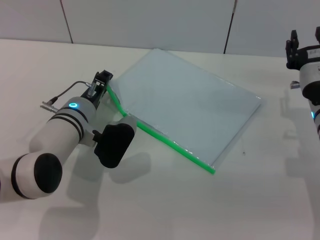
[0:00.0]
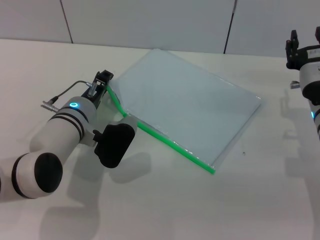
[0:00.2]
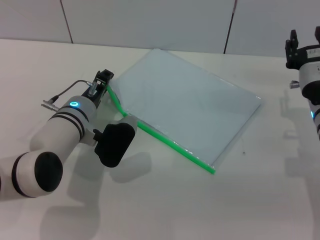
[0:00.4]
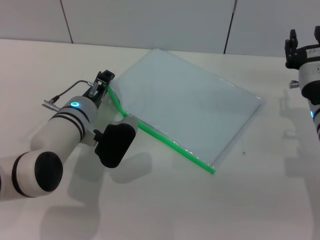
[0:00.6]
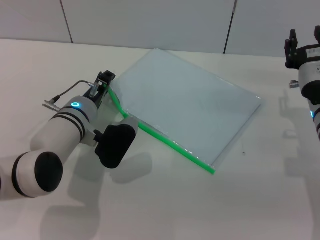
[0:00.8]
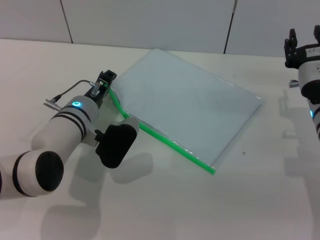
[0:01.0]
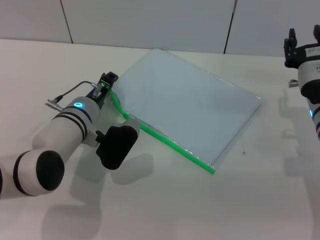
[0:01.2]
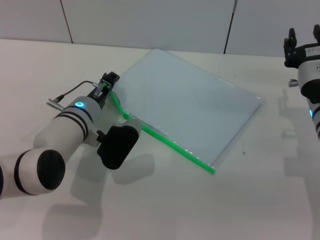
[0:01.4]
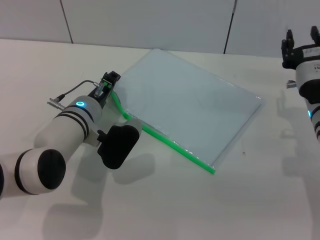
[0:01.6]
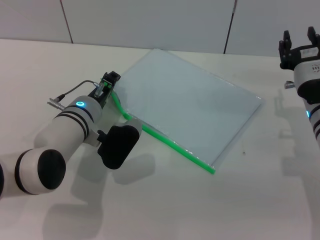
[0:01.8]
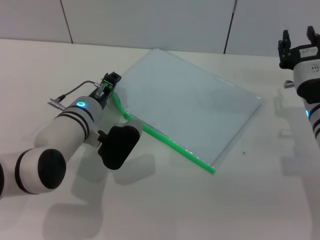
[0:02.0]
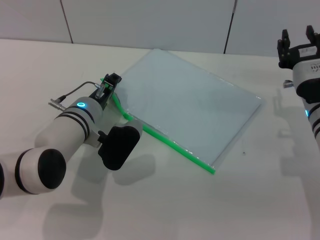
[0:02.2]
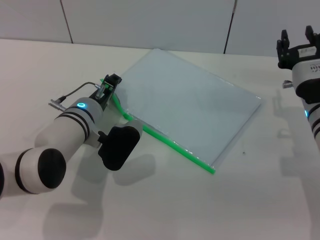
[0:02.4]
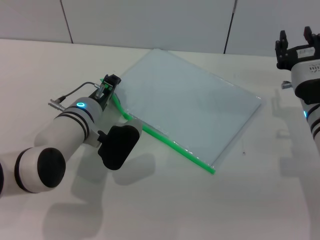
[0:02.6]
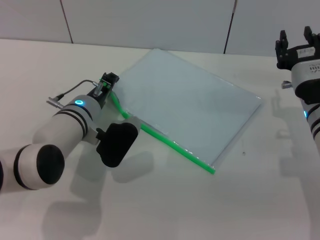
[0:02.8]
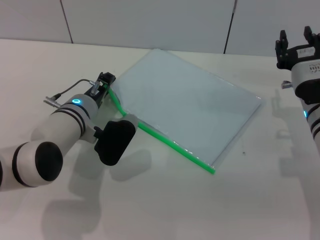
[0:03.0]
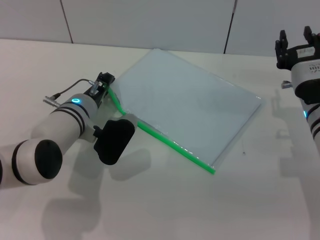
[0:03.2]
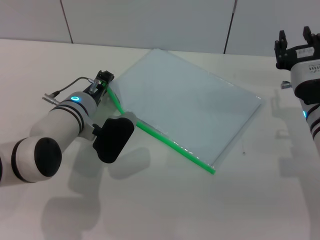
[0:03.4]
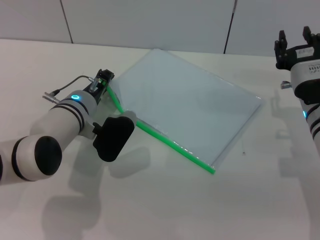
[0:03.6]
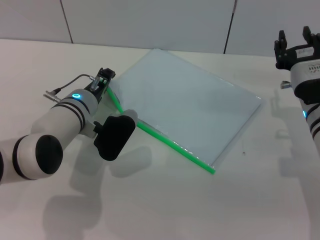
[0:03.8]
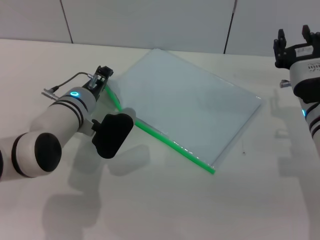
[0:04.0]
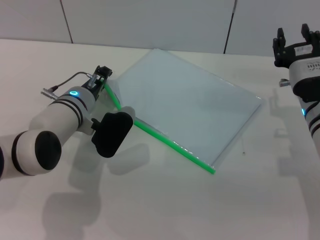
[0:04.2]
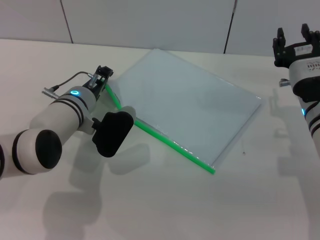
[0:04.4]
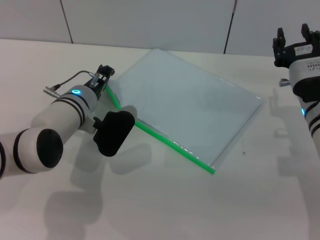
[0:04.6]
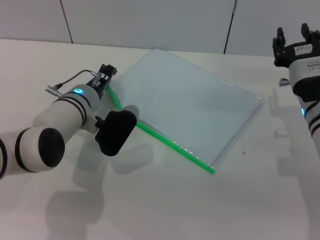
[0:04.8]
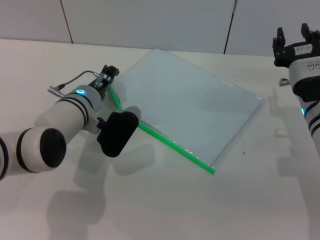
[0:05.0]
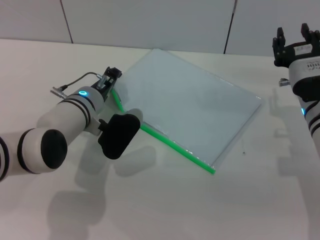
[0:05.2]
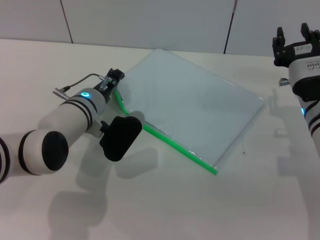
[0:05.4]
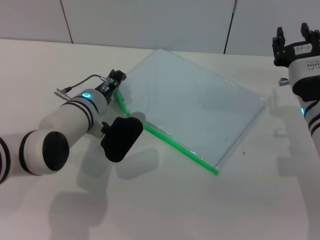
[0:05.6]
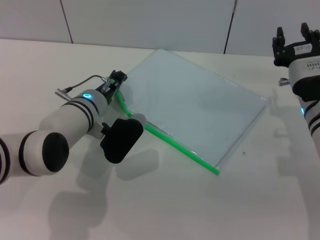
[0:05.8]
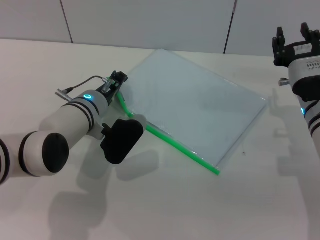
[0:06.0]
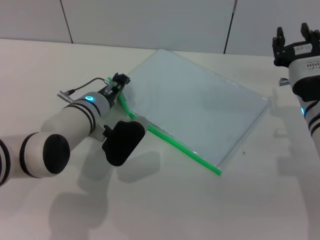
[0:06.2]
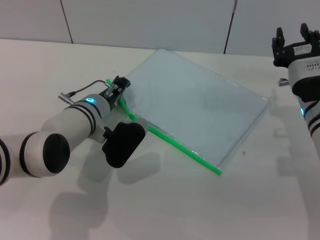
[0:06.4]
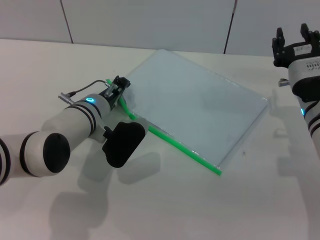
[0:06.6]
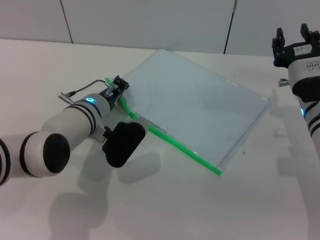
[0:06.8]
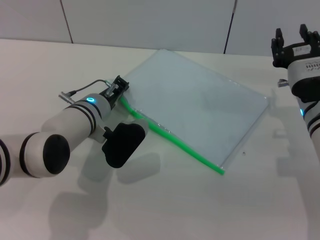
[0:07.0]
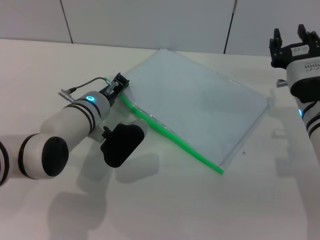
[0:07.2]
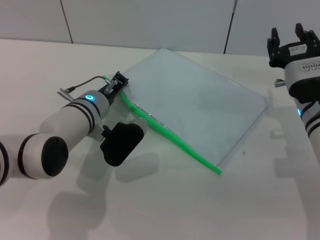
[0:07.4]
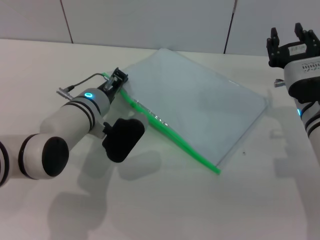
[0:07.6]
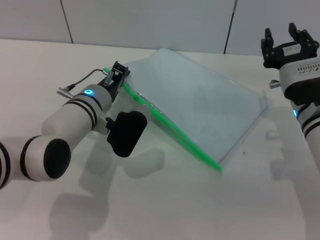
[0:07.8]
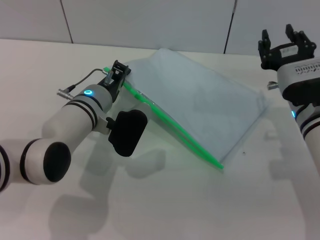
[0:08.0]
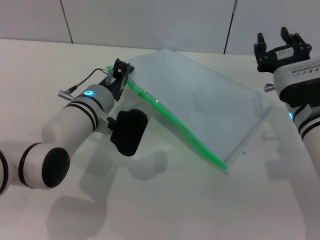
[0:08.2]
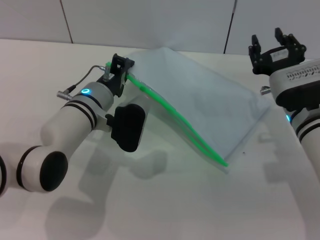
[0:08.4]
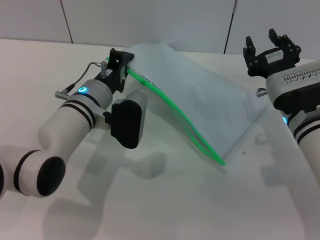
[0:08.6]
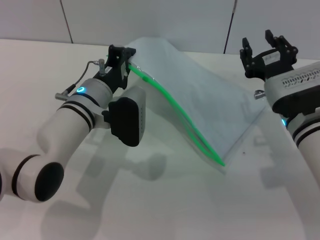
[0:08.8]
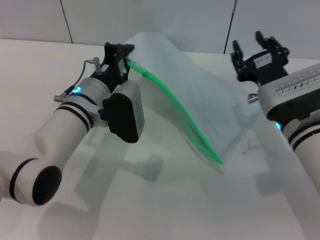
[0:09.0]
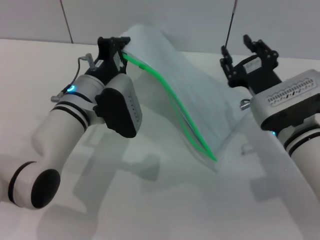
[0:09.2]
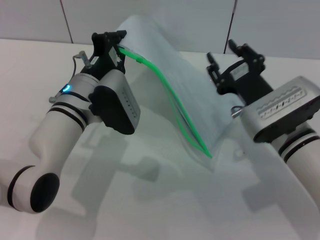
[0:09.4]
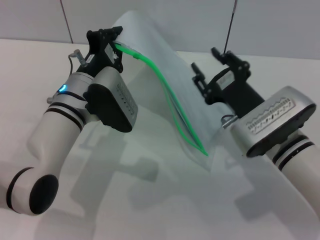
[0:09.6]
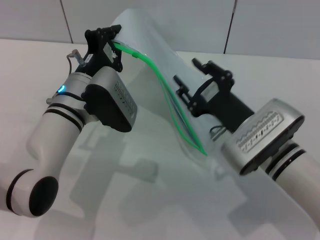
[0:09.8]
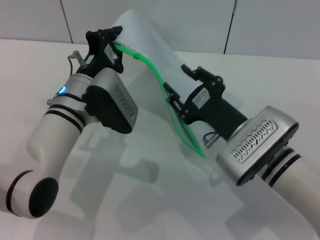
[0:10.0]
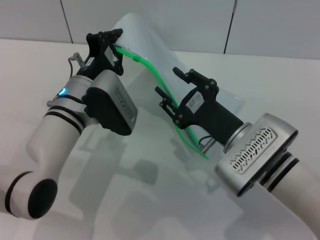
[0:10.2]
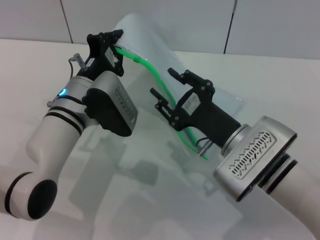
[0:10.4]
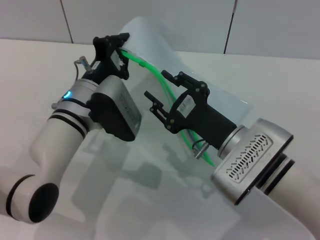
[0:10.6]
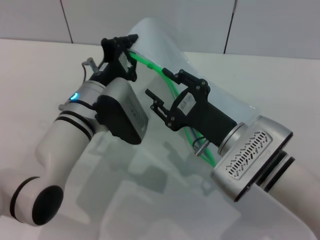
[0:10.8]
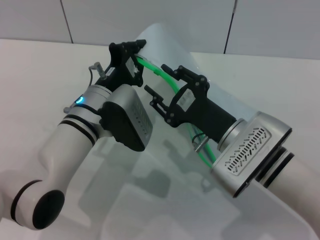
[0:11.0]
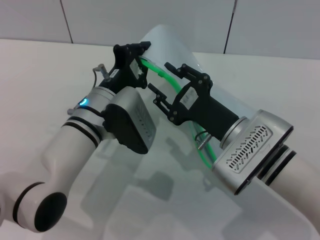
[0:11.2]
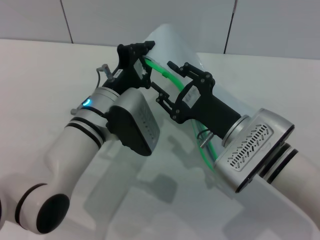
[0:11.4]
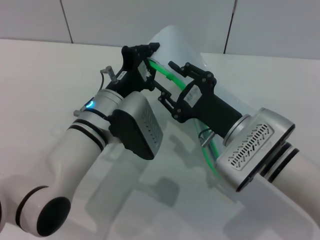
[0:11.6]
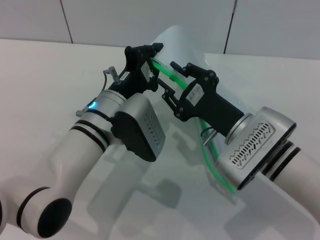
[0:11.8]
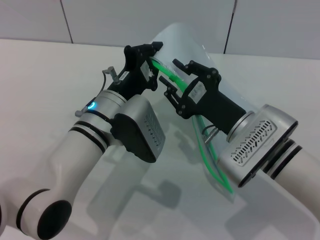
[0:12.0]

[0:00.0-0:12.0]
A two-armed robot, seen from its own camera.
Step, 0:00.0 to 0:10.4: Pick up the transparent plastic bag with the left gripper.
0:00.0 to 0:03.0: Neither gripper changes place.
0:03.0 to 0:06.0: The grippers make only small movements.
0:06.0 to 0:07.6: The left gripper closes up.
0:09.0 to 0:10.4: The right gripper moves backward and to the left, roughly 10 cm.

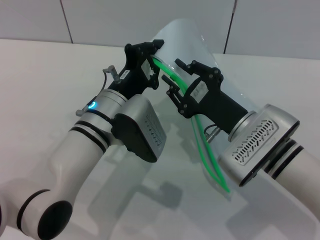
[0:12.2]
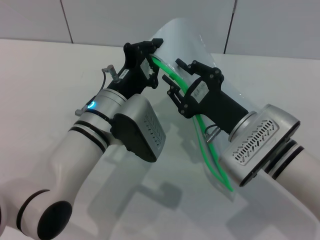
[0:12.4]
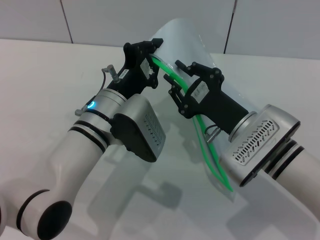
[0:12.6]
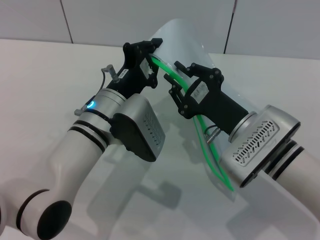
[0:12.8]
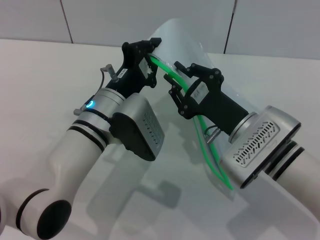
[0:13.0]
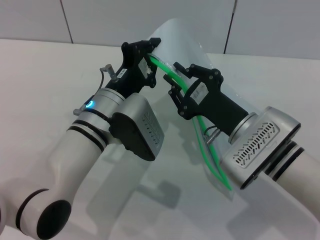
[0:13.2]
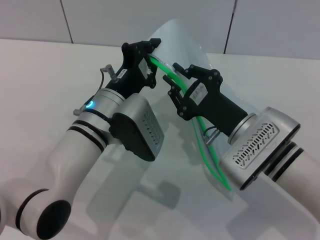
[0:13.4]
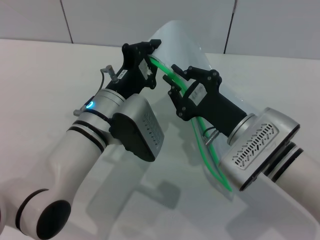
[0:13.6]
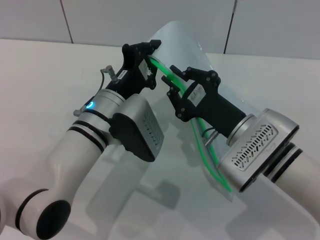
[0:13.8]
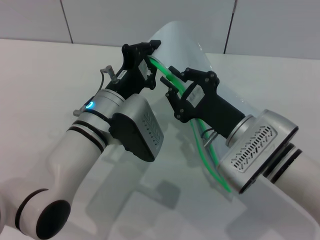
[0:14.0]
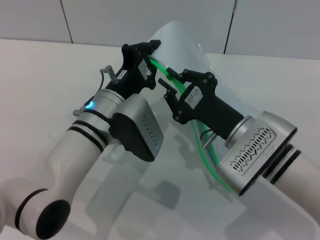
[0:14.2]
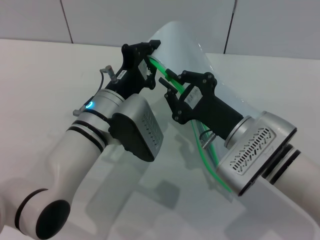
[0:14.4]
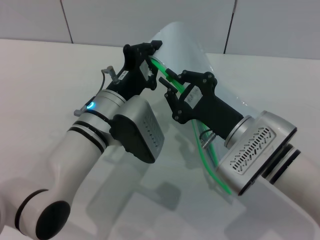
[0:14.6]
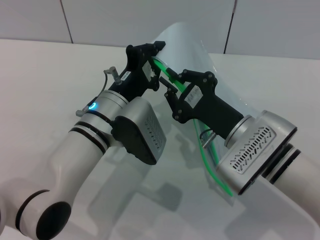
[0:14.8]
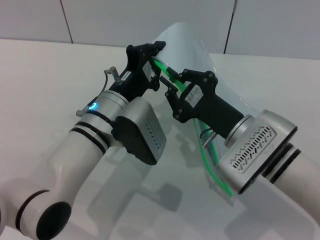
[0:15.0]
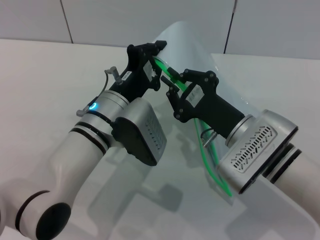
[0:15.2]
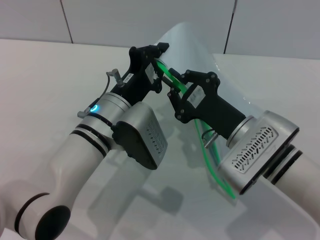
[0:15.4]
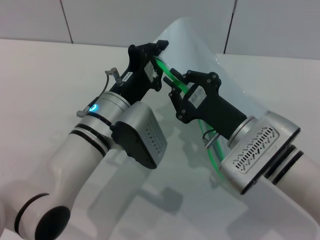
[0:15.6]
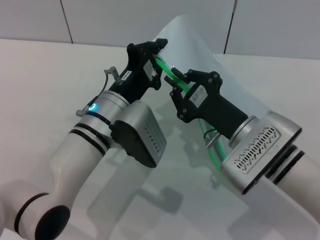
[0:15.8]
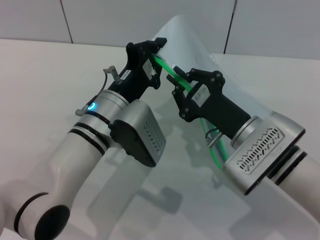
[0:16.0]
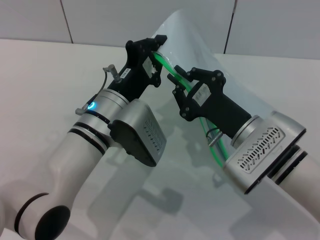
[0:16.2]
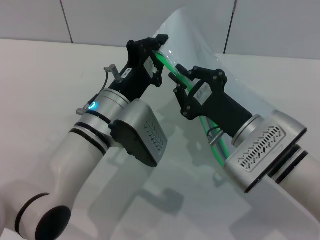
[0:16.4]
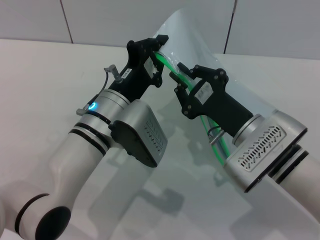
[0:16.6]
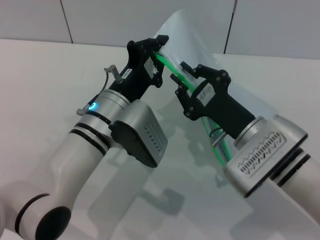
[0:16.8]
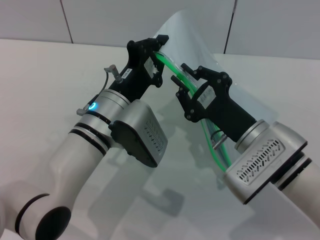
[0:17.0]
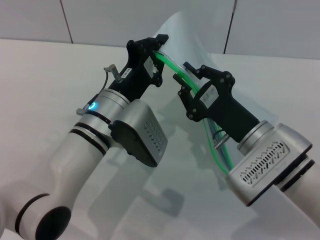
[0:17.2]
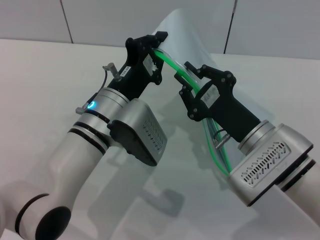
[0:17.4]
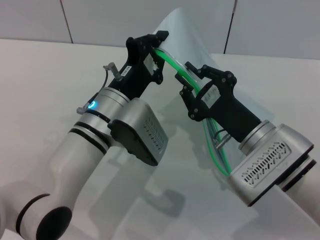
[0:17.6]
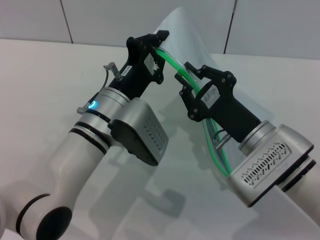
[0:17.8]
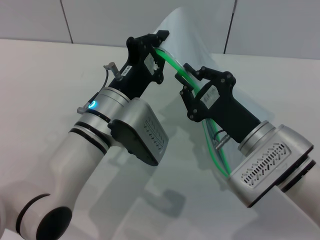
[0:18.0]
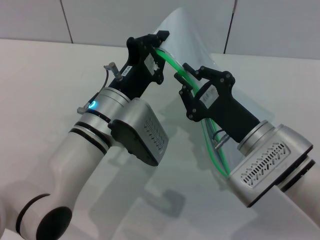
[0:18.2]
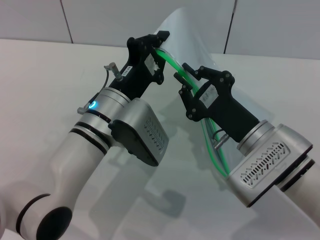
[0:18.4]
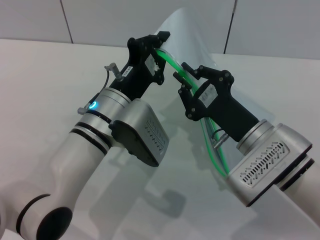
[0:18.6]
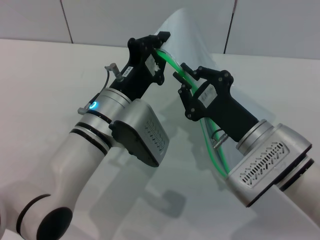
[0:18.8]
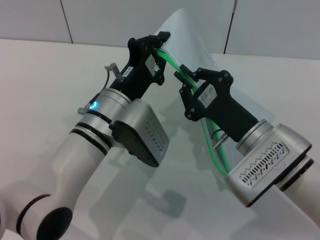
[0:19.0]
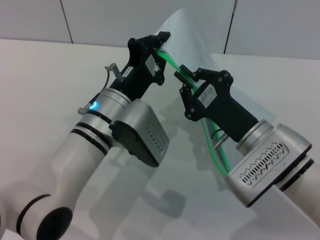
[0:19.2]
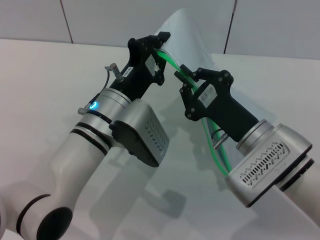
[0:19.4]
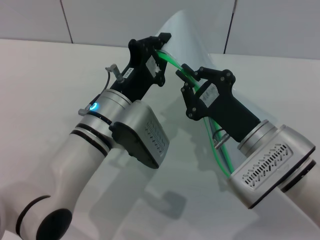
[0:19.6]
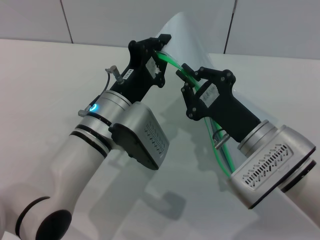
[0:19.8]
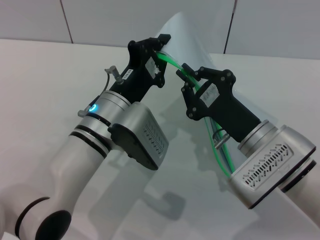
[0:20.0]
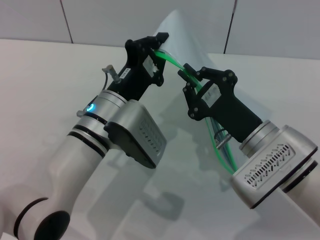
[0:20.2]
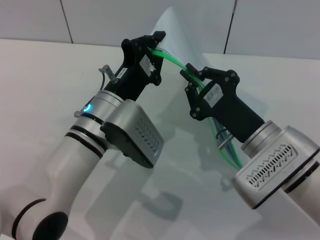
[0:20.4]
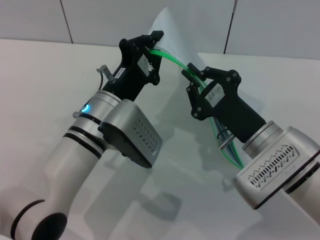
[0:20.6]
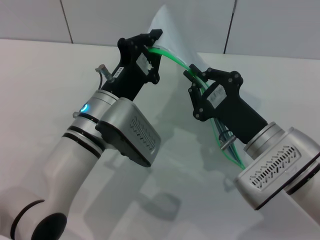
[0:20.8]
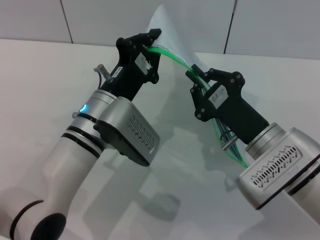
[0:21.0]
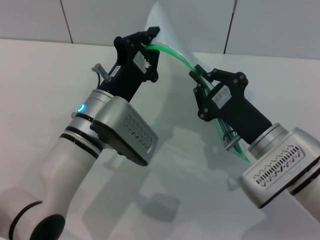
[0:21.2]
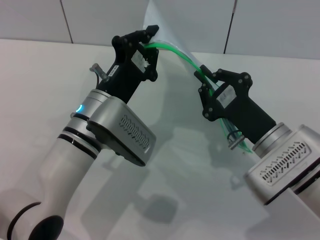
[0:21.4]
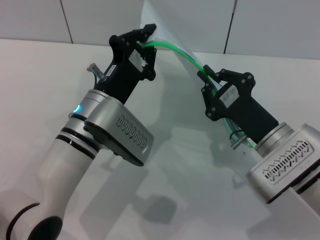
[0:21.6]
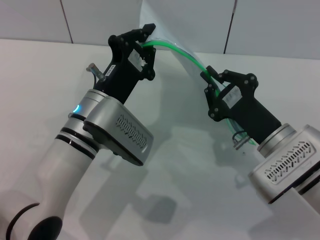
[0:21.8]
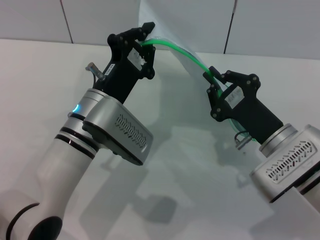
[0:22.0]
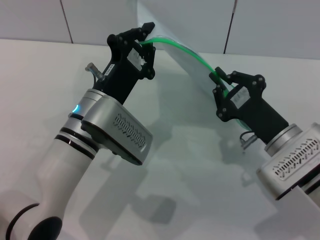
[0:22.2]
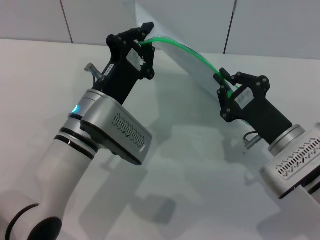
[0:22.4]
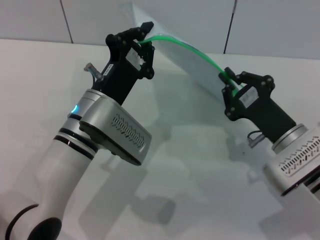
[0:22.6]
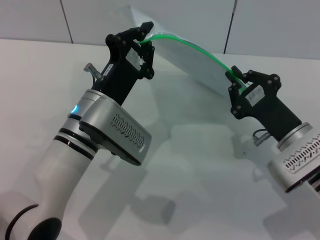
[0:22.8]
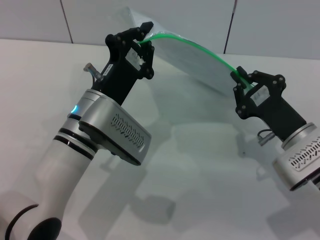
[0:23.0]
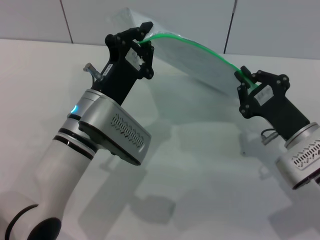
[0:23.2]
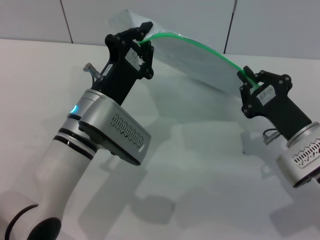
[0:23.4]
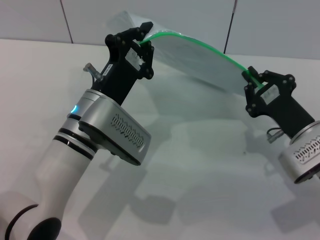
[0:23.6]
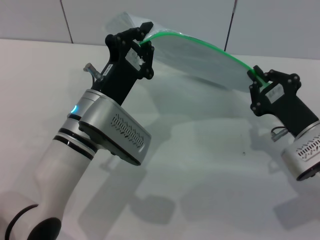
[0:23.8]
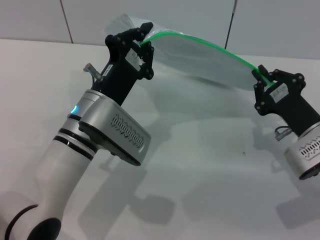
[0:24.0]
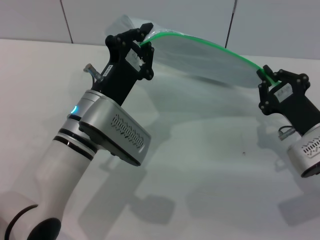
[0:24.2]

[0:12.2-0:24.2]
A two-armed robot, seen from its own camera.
0:12.2 to 0:13.8: The right gripper closes.
0:13.8 to 0:16.6: Both grippers stay put.
0:16.6 to 0:18.2: The grippers make only small movements.
0:18.2 to 0:19.8: Both grippers stay about where they are.
0:22.6 to 0:24.2: The grippers move only a little.
